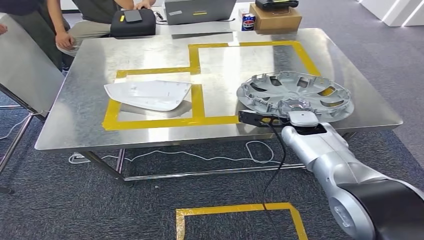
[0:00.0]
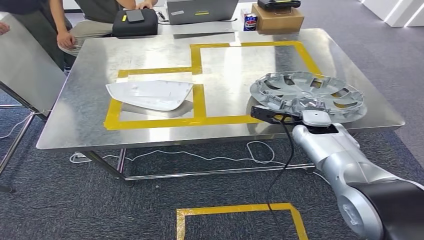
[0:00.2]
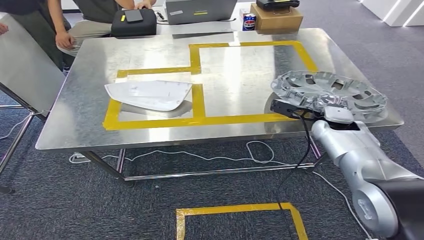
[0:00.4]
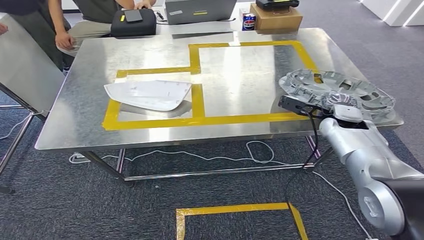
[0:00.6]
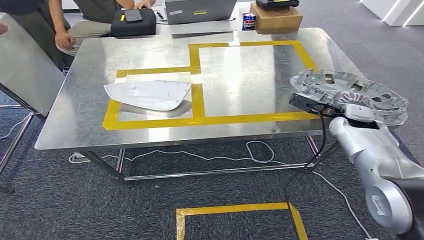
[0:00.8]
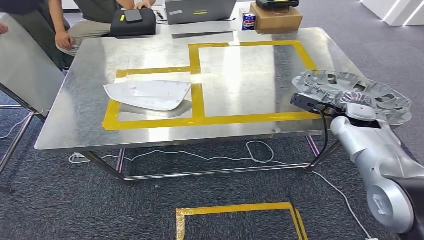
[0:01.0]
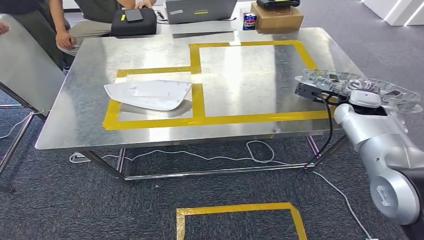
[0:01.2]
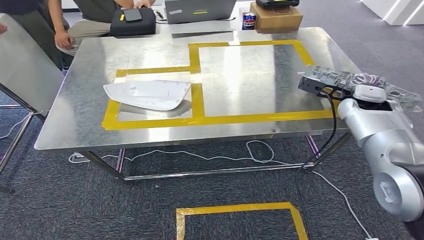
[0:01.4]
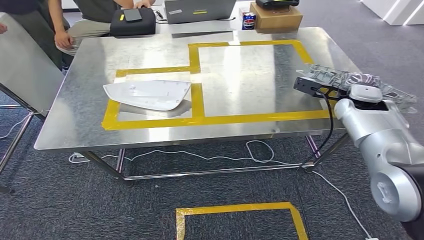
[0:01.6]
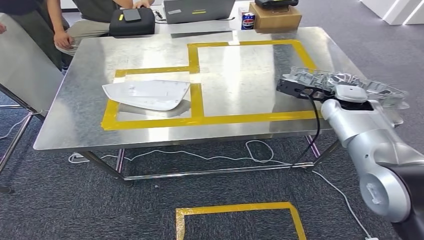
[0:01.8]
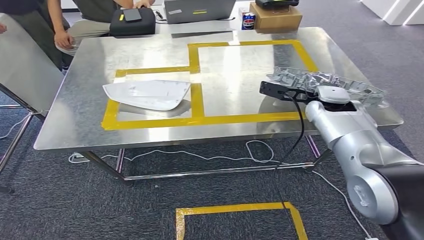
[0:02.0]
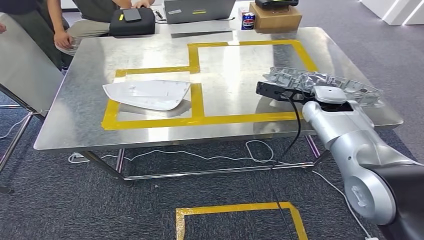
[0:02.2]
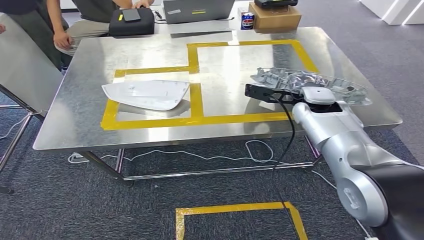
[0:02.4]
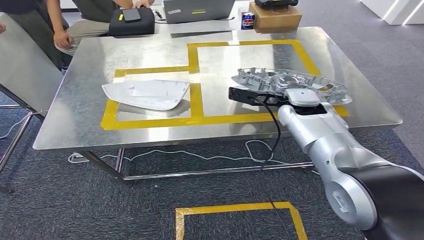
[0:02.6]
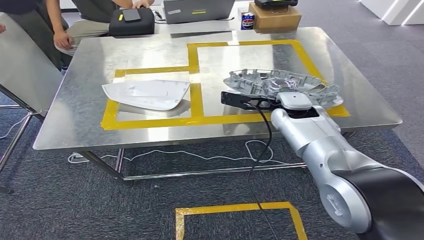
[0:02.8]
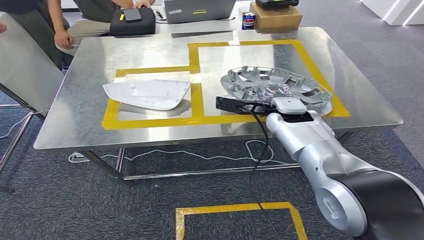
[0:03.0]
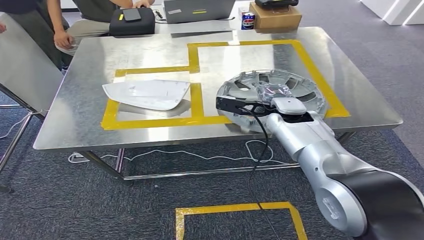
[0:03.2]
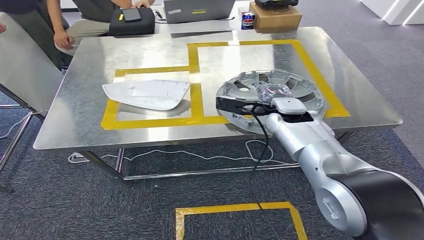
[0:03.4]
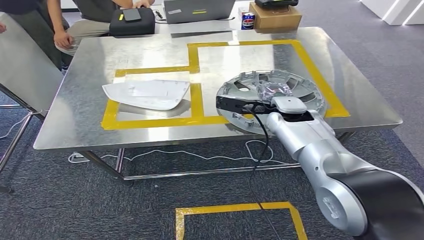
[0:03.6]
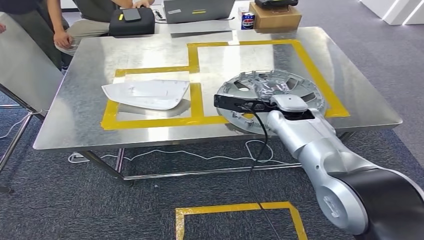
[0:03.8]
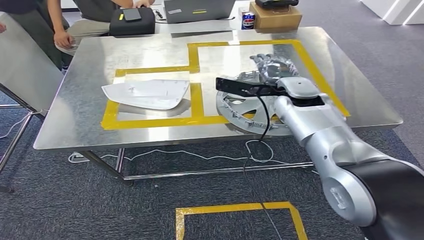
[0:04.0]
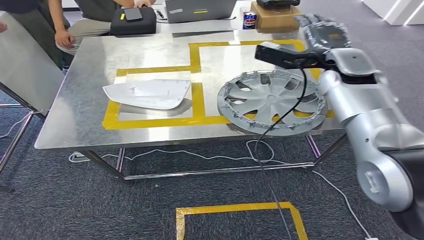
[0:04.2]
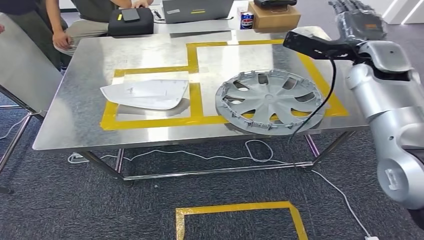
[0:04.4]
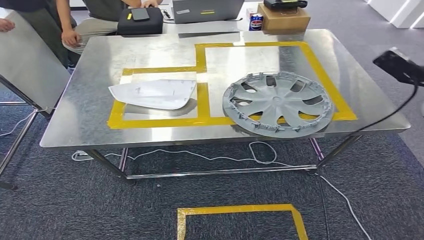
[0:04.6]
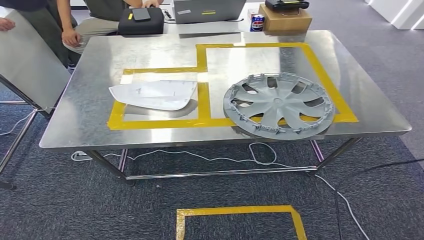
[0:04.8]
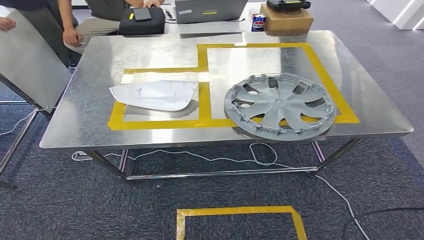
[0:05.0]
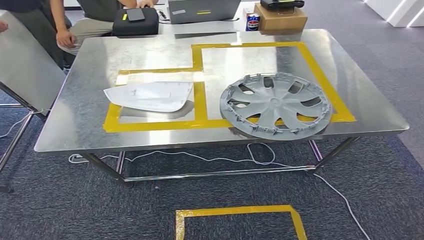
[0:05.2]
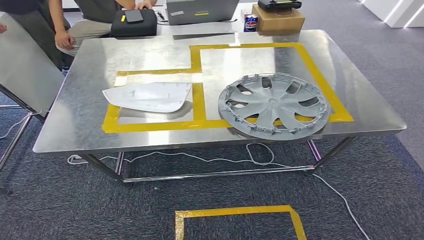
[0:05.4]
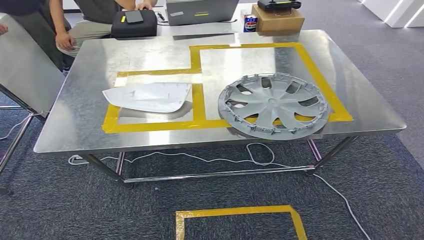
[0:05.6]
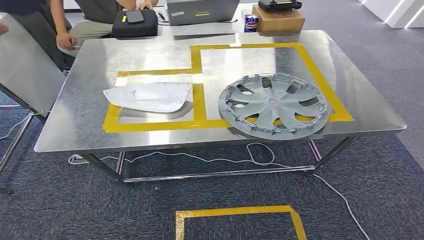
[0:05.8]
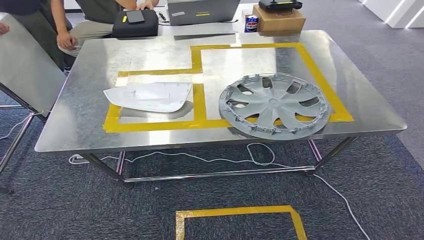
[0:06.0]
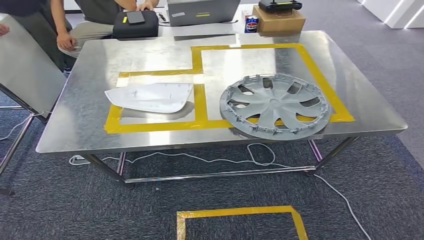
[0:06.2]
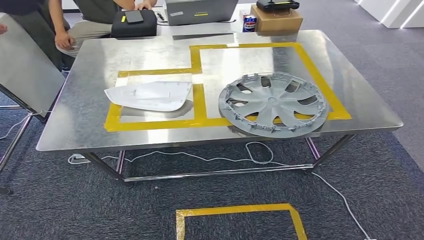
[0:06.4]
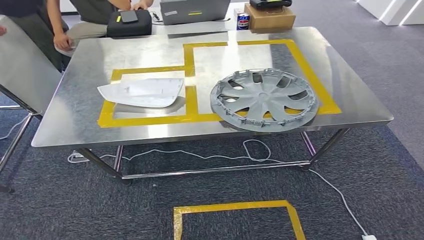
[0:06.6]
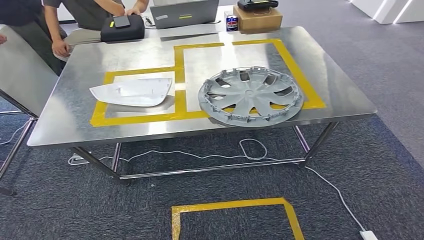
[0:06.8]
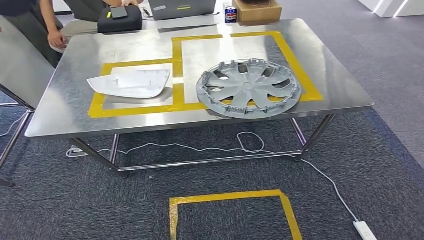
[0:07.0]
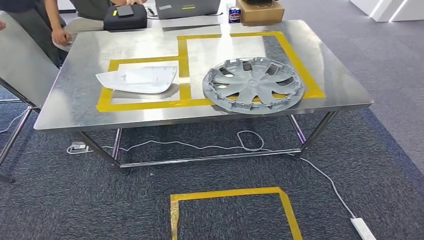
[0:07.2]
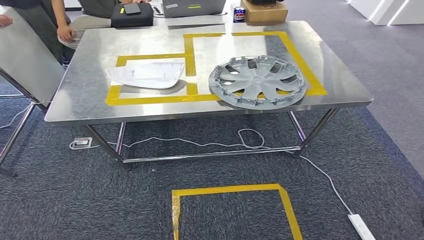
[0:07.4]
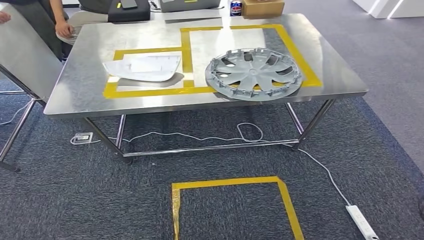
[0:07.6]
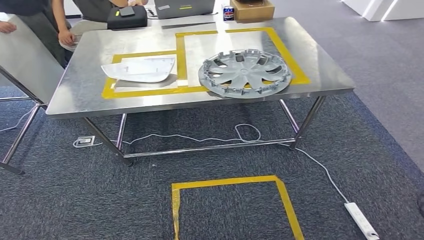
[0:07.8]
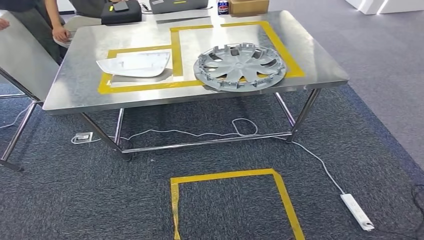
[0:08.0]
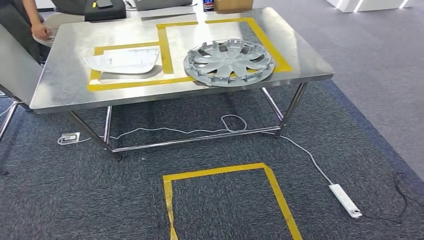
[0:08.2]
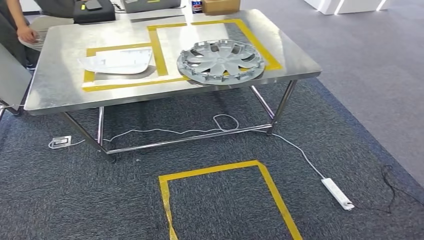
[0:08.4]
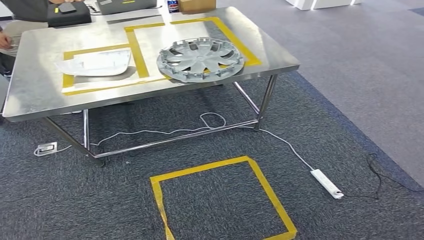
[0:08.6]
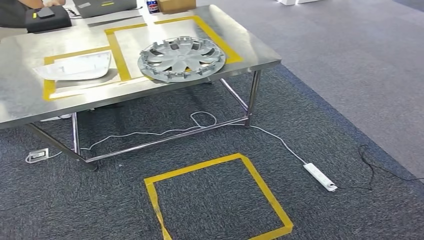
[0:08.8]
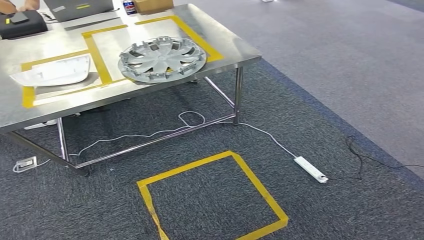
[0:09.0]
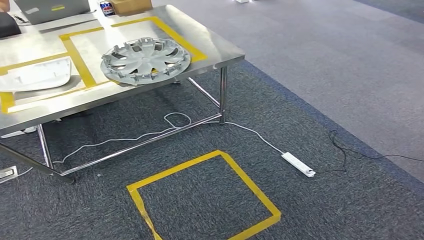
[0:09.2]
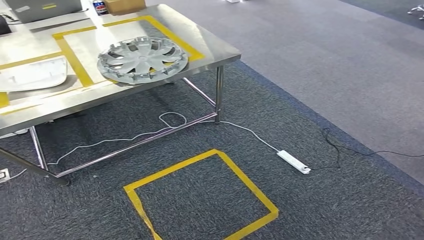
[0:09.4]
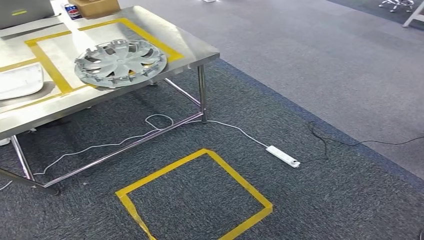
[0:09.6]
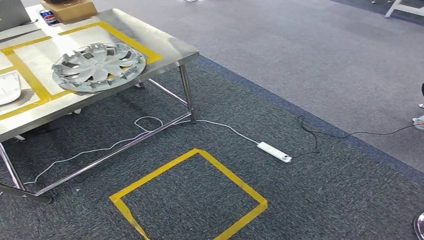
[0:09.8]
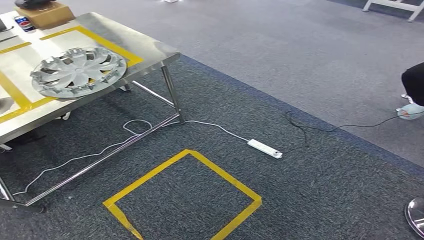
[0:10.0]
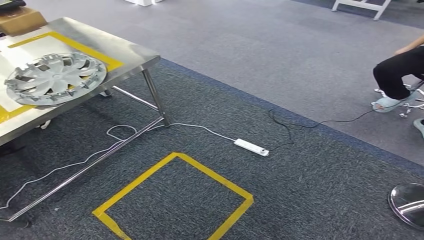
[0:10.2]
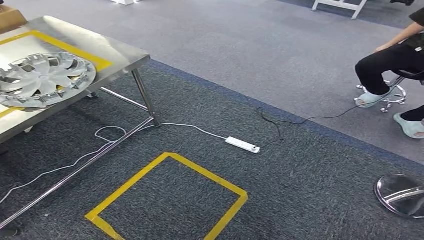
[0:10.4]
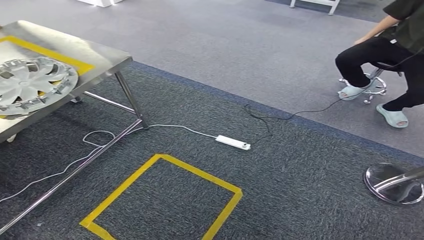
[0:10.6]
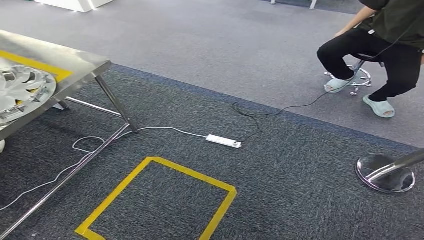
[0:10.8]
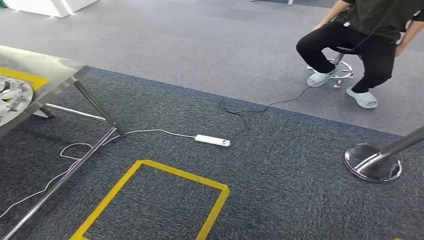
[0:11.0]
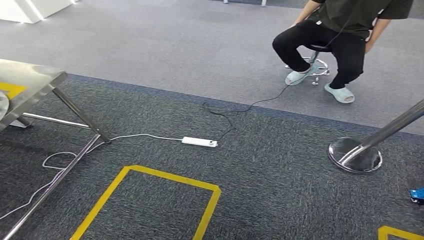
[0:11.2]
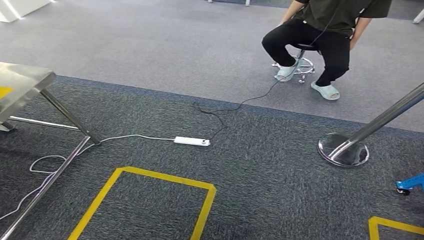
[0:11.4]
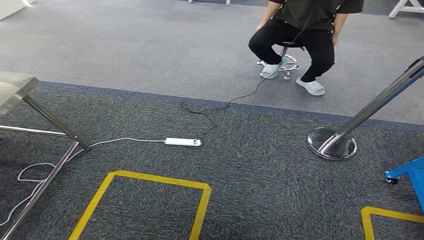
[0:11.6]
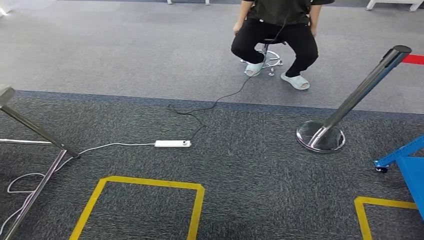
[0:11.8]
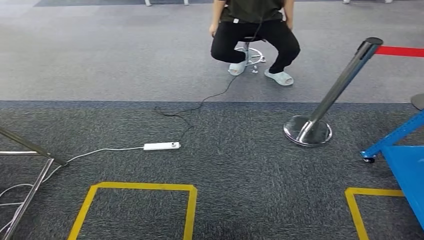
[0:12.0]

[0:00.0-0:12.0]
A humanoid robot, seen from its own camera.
Step, 0:00.0 to 0:05.6: Insert the small parts into the corresponding holes on the workbench.
0:00.0 to 0:01.6: The right hand goes some 10 cm to the right and upward.
0:01.6 to 0:03.0: The right hand moves to the left, roughly 15 cm.

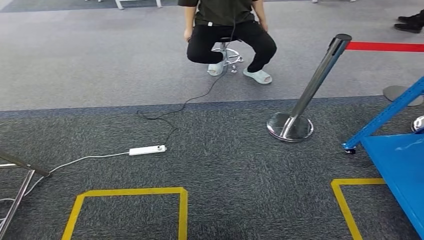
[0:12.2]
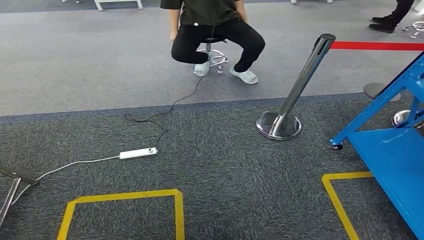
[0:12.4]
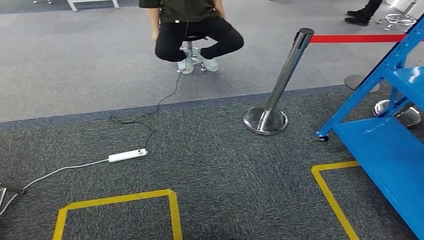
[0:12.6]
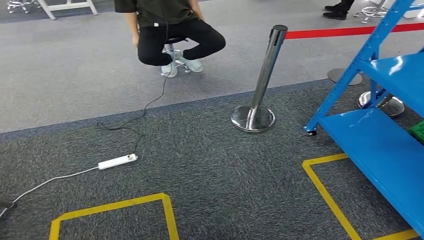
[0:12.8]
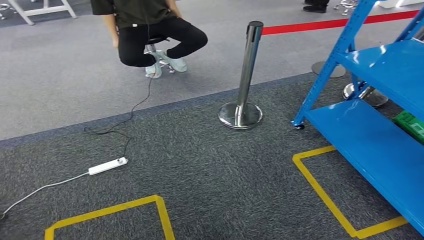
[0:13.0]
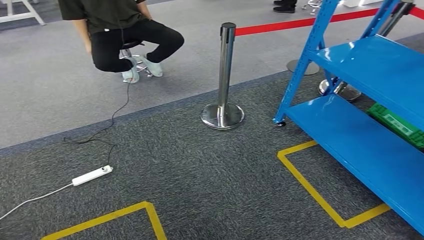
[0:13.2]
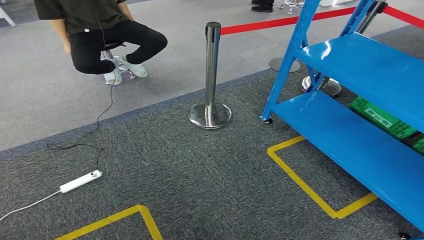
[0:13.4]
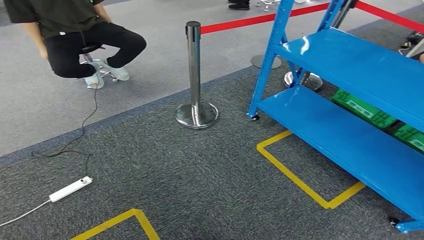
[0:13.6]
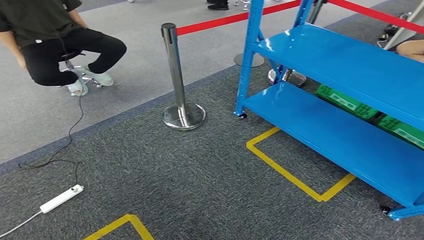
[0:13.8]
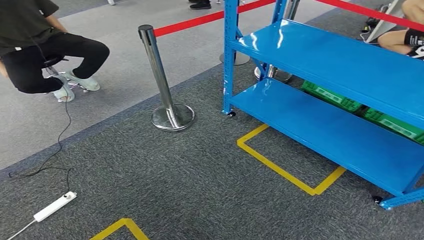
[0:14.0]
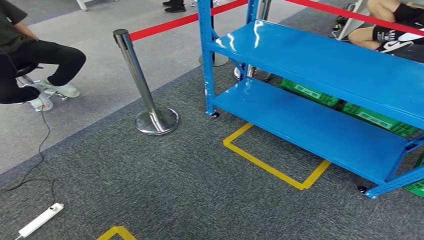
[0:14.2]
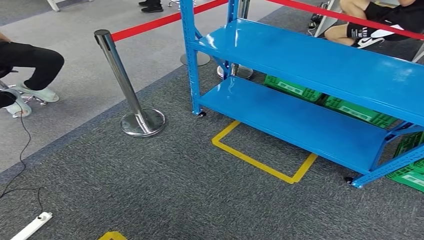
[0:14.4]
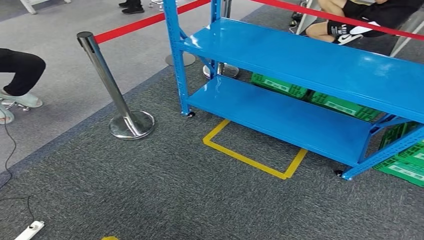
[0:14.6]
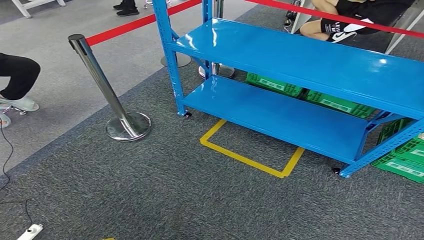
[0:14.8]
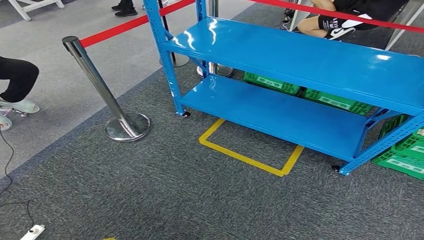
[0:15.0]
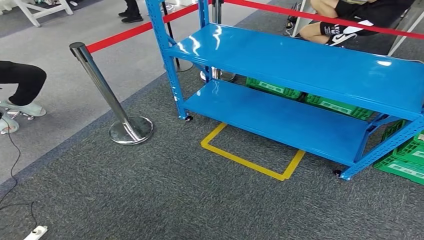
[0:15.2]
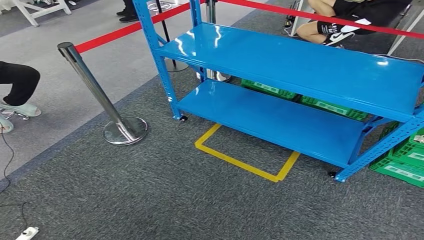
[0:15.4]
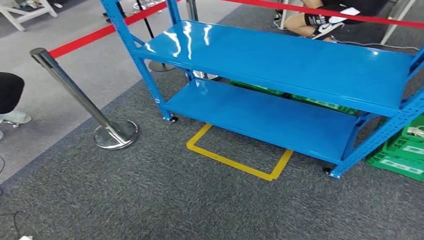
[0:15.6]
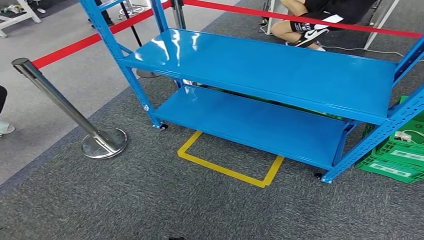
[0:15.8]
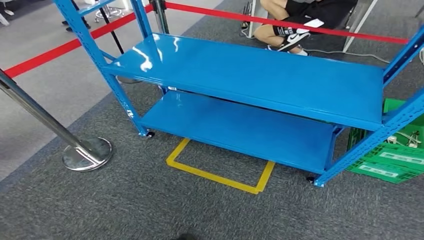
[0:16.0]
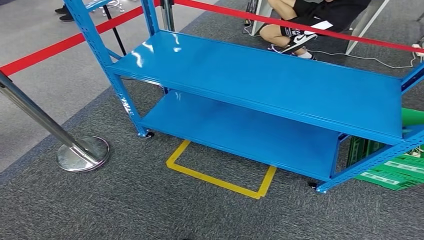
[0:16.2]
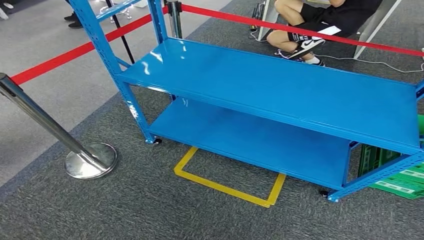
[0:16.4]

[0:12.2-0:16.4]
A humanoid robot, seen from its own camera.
Step, 0:12.2 to 0:16.4: Move to the initial position at the workbench.
